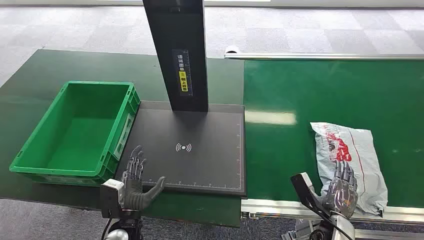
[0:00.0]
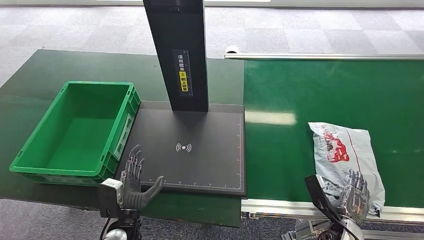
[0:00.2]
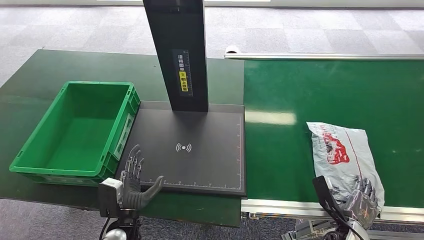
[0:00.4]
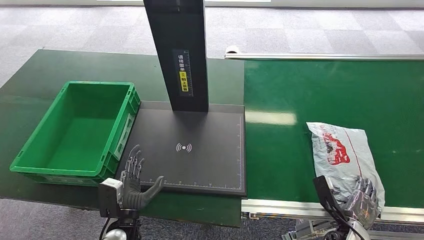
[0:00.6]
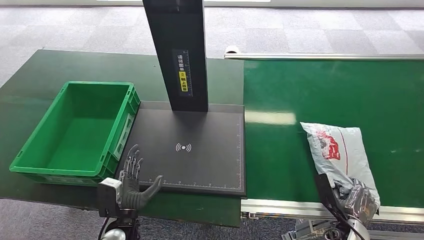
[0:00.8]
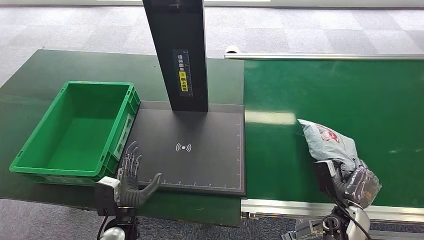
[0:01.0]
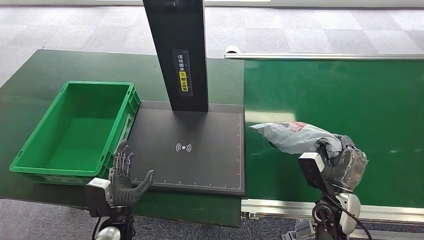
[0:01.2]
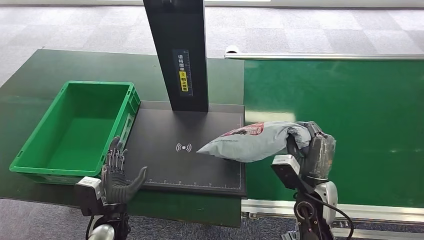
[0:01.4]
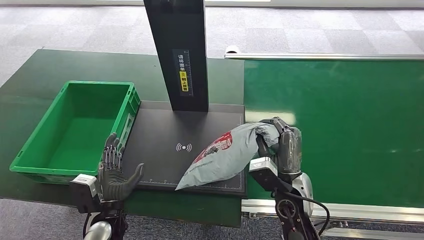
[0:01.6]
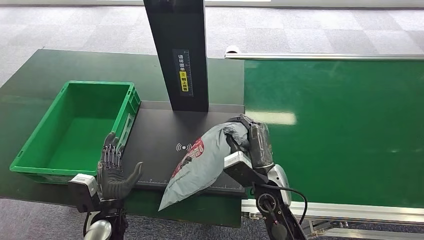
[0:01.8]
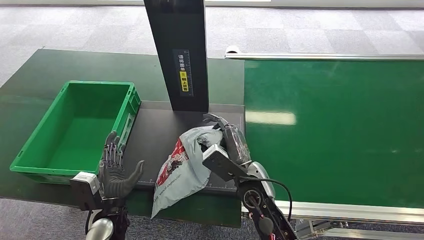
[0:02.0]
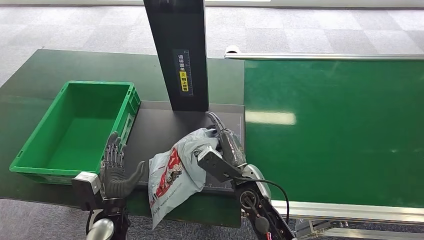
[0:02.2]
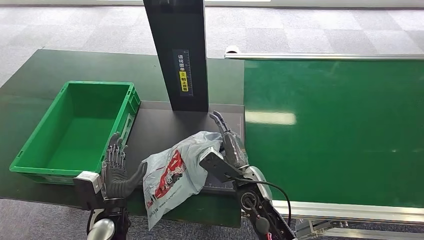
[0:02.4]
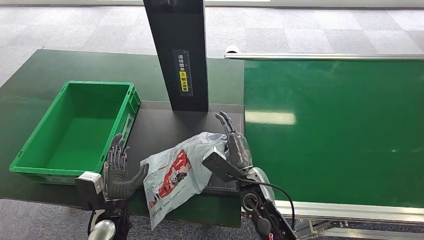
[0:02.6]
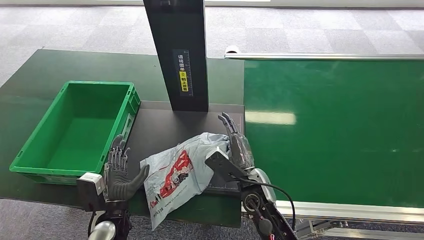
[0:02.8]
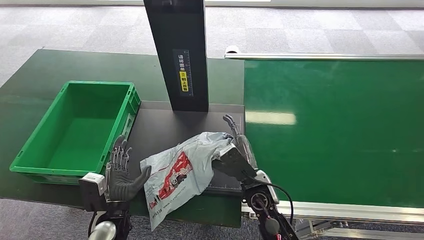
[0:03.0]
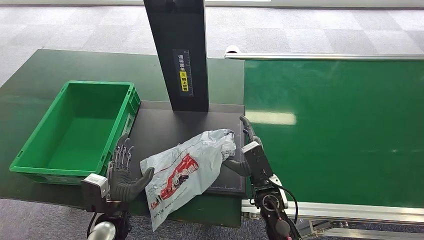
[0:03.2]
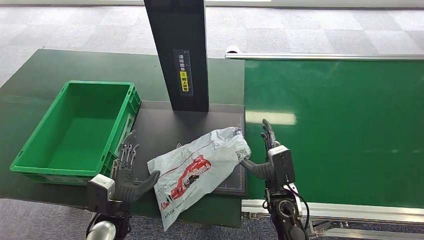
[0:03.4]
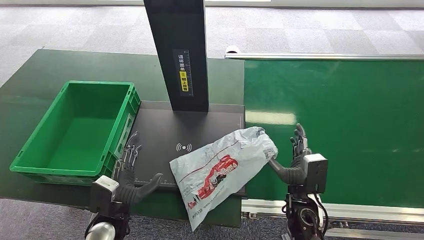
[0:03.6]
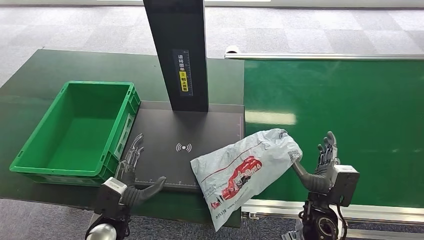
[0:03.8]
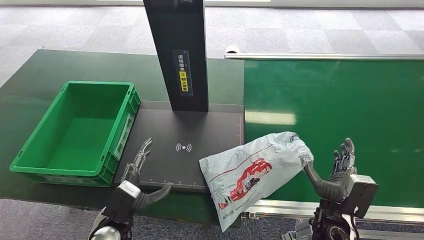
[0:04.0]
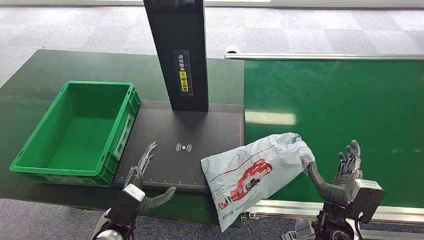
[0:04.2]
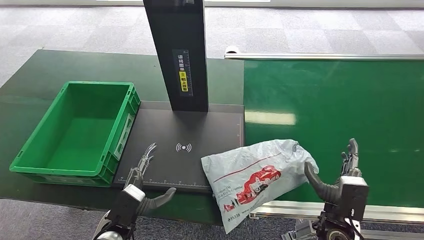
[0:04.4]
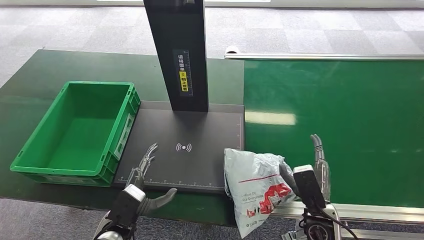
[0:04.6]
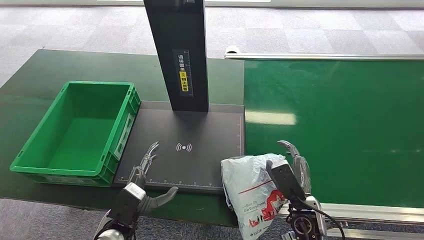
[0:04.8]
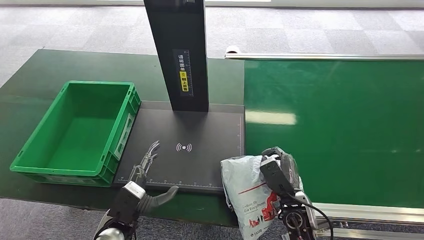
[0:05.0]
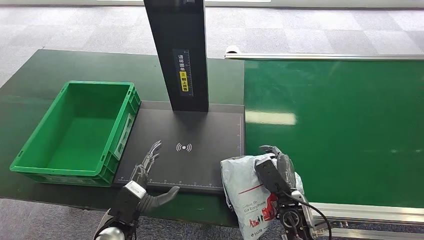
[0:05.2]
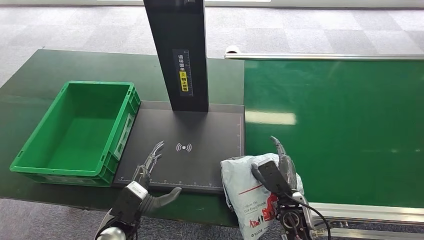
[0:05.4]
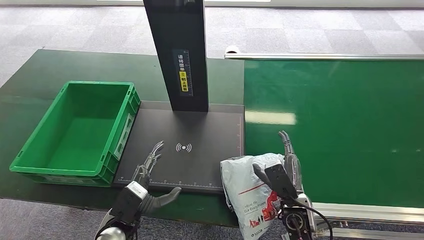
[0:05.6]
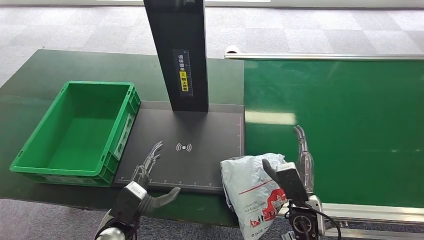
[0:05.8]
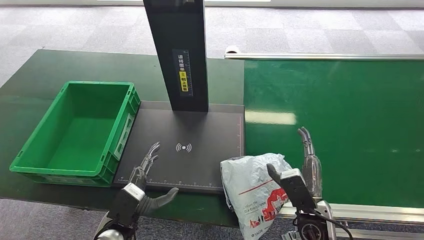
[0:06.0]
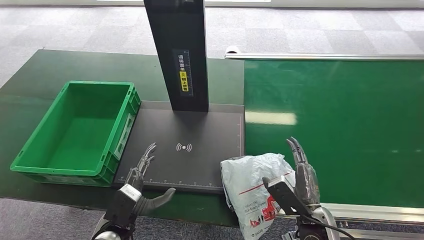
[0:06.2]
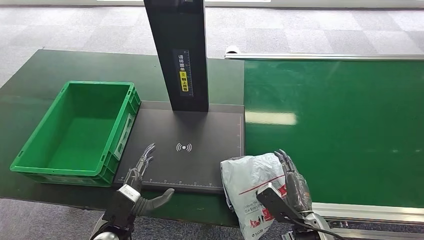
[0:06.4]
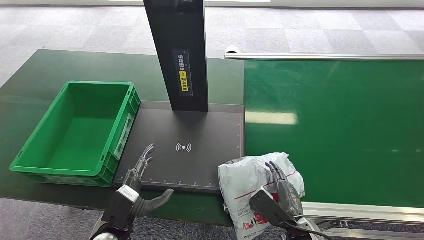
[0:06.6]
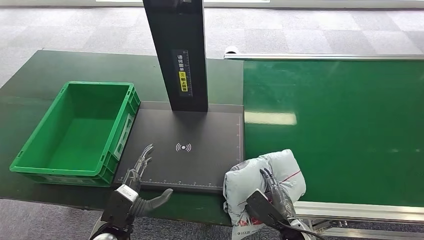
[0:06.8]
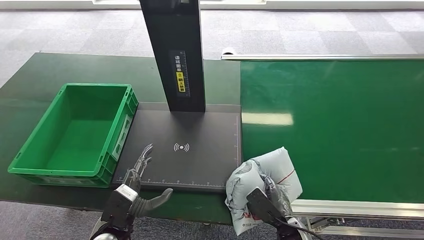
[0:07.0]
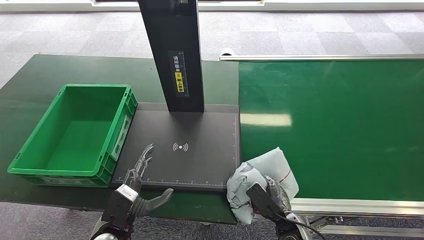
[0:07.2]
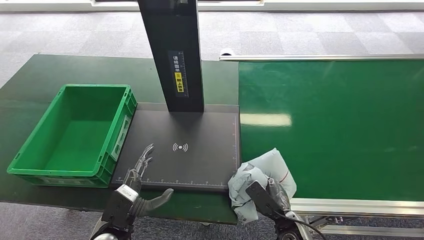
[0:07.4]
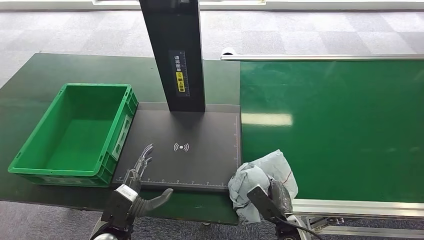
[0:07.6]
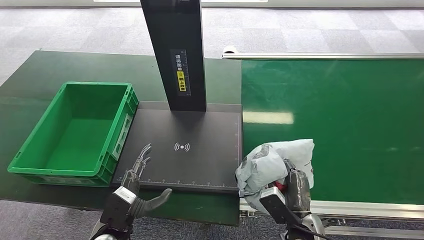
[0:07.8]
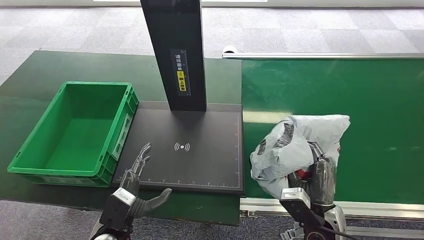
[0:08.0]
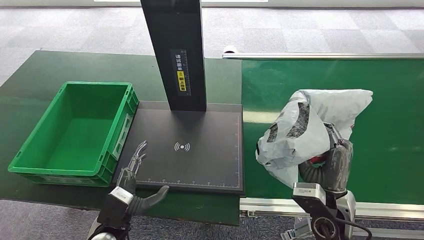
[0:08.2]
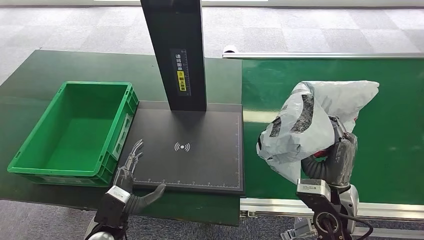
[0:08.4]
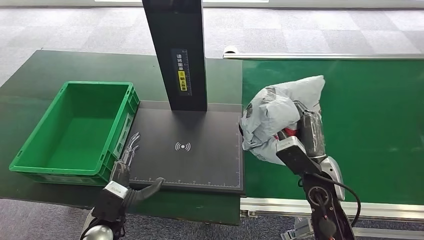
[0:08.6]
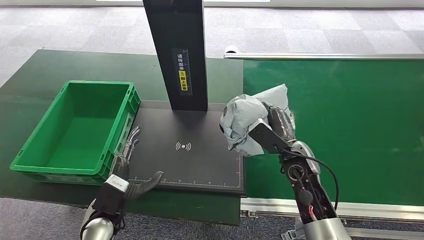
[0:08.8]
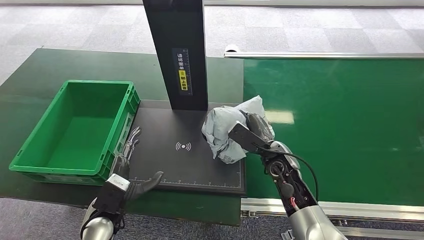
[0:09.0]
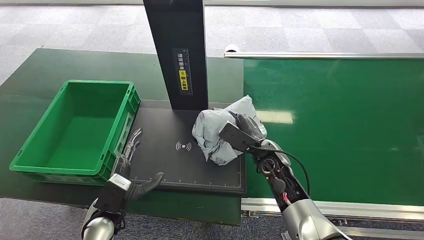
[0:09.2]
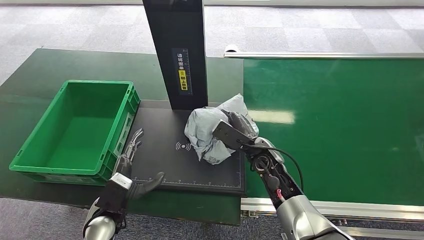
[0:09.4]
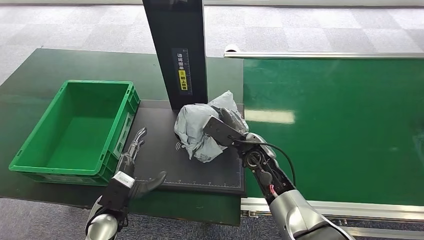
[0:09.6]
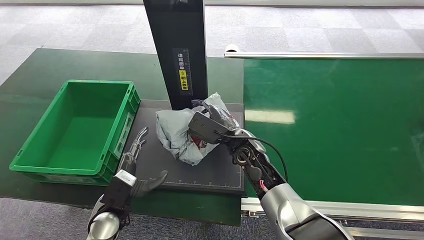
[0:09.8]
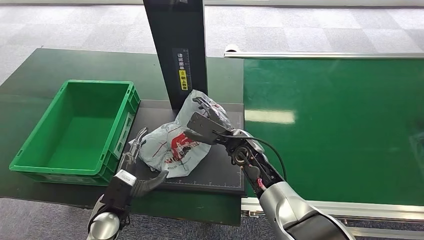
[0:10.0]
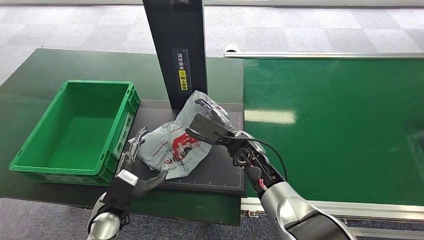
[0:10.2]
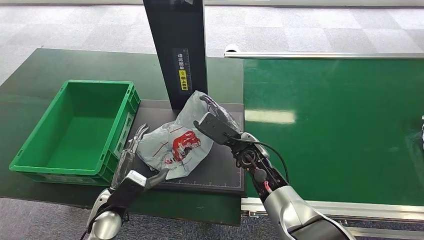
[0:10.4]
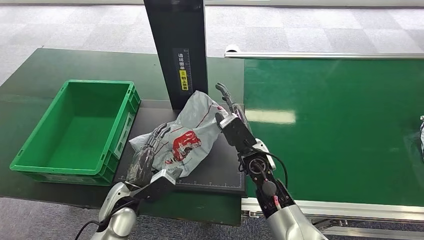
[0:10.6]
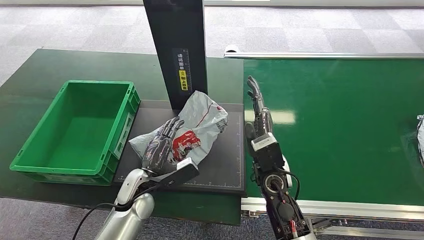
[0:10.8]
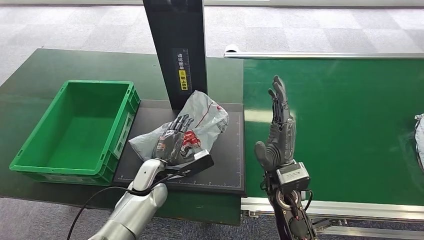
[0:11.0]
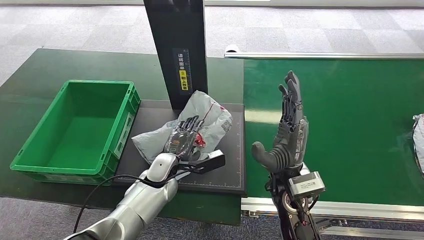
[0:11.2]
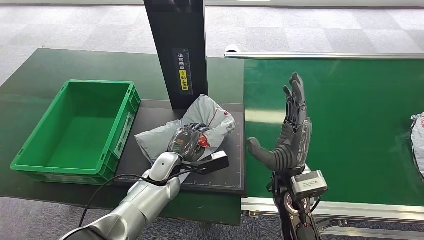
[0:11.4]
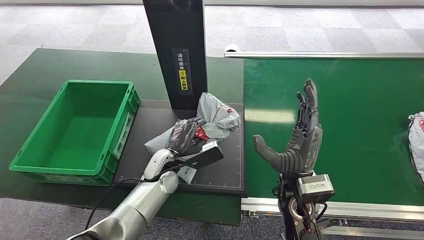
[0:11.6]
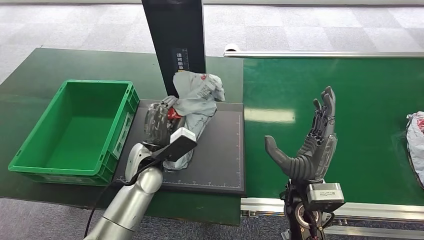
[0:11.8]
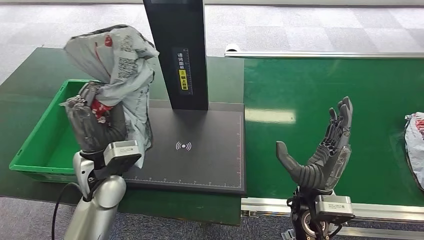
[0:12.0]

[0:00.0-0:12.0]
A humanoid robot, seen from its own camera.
Step, 0:00.0 to 0:01.6: Pick up the package from the conveyor belt.
Step, 0:08.2 to 0:11.0: Place the package onto the inbound machine.
0:01.6 to 0:03.0: The right hand heads to the left, covering about 5 cm.
0:03.0 to 0:04.4: The right hand is displaced to the right and backward by about 20 cm.
0:06.0 to 0:07.6: The right hand goes roughly 10 cm downward.
0:09.0 to 0:10.4: The right hand goes roughly 10 cm to the left.

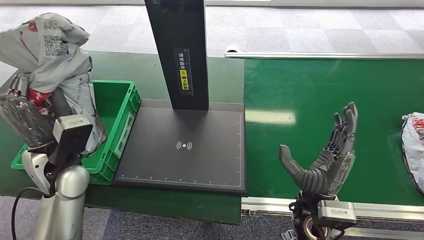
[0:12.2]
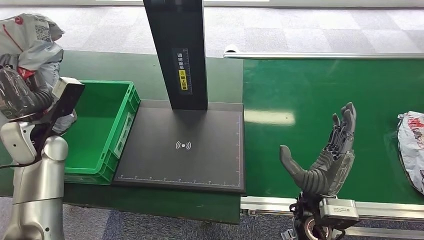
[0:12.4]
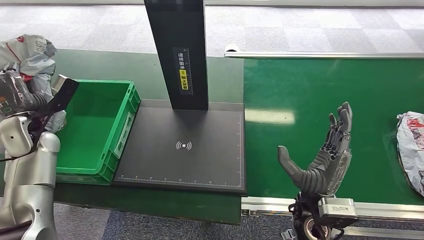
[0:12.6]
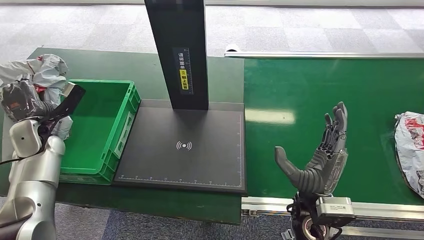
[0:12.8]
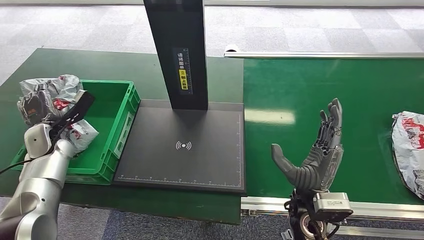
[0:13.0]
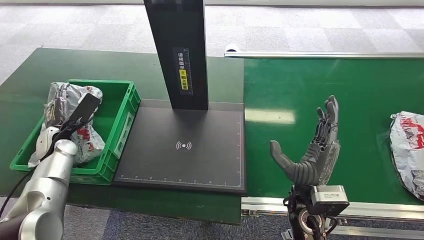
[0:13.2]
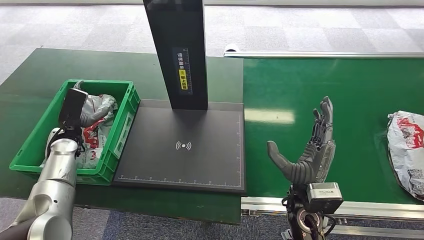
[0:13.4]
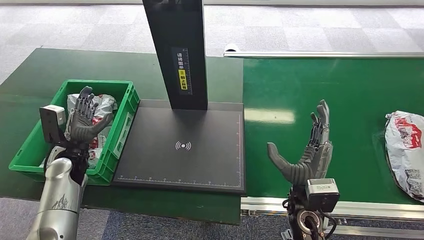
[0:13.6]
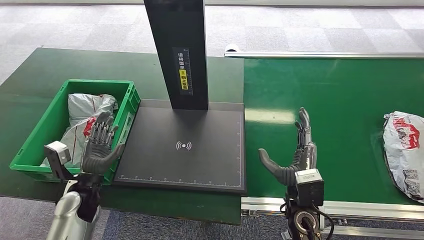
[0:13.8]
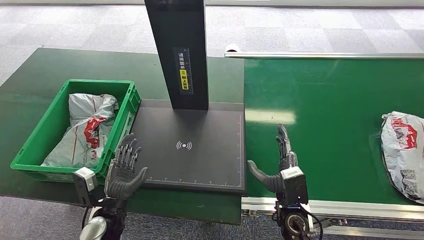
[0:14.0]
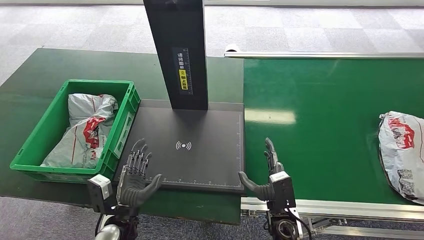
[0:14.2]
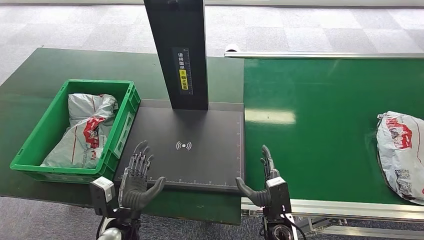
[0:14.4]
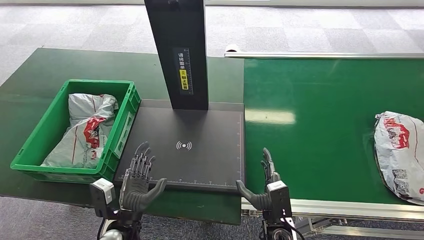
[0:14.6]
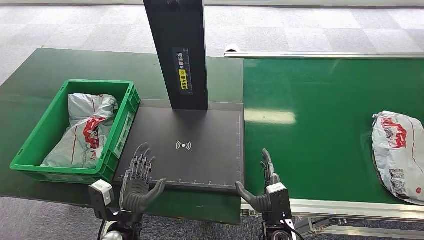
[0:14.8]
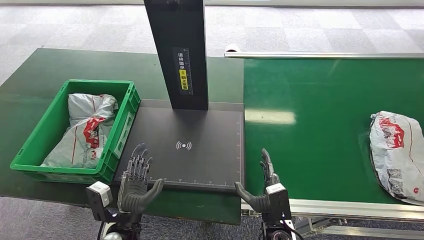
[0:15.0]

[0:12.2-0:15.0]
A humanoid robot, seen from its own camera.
Step, 0:13.0 to 0:15.0: Place the package into the parcel locker.
0:13.6 to 0:15.0: The right hand goes some 15 cm downward; the left hand goes some 25 cm to the right and backward.
